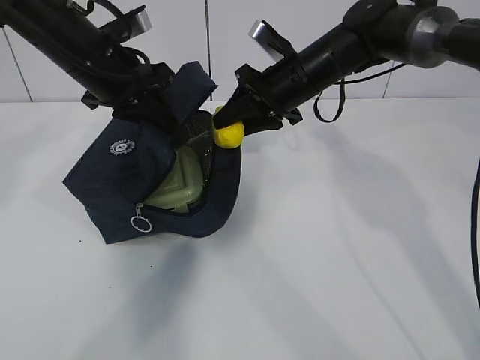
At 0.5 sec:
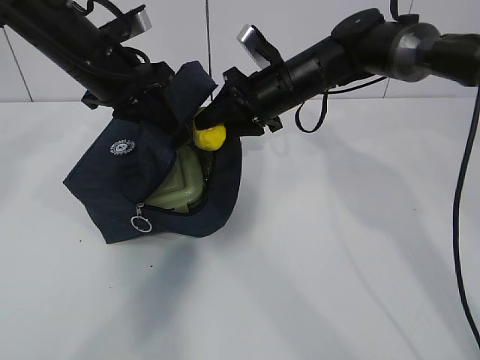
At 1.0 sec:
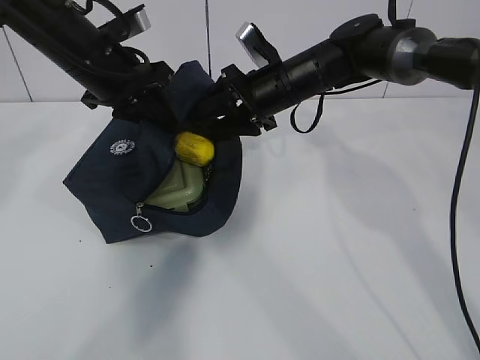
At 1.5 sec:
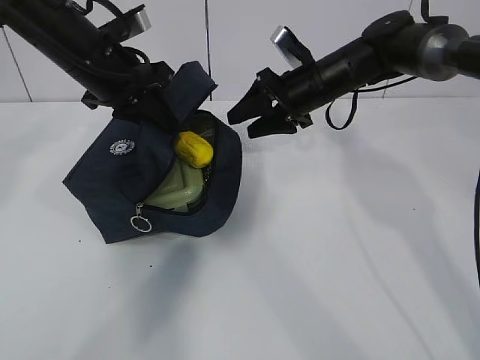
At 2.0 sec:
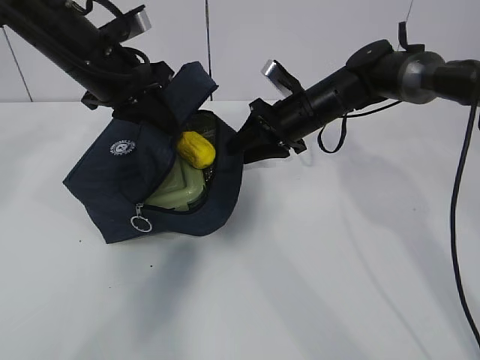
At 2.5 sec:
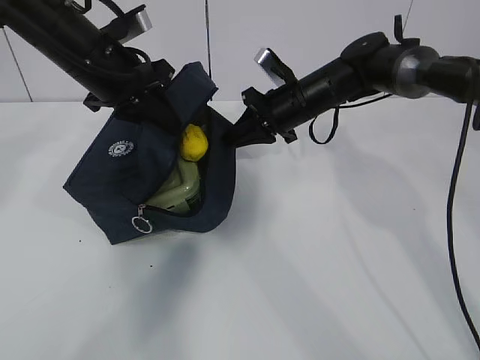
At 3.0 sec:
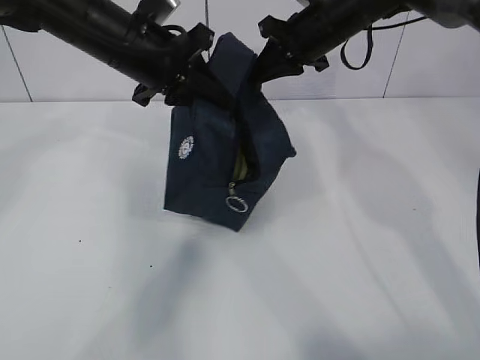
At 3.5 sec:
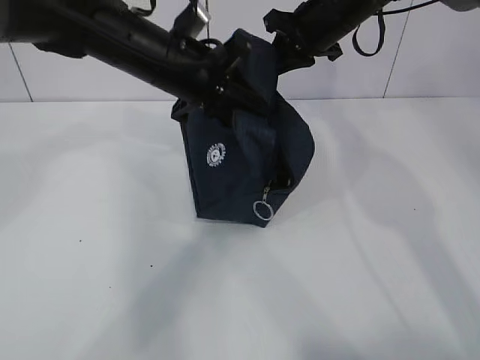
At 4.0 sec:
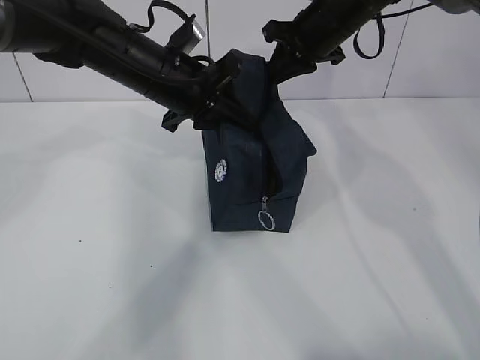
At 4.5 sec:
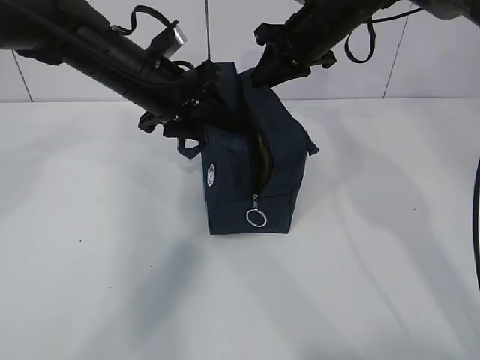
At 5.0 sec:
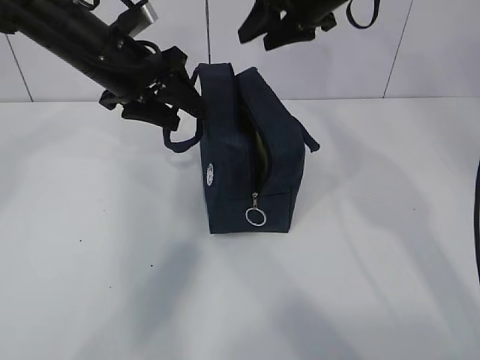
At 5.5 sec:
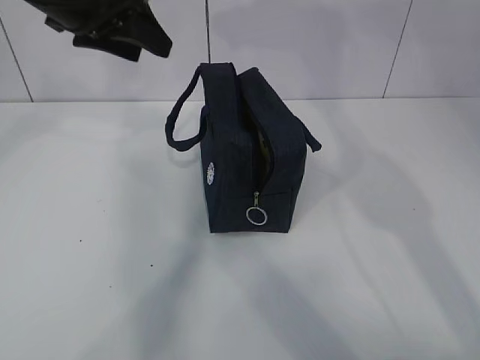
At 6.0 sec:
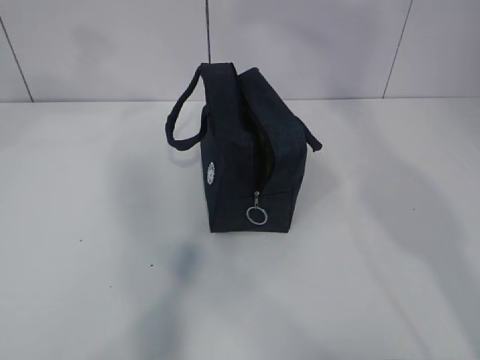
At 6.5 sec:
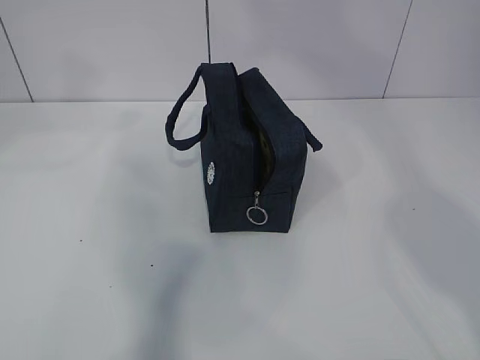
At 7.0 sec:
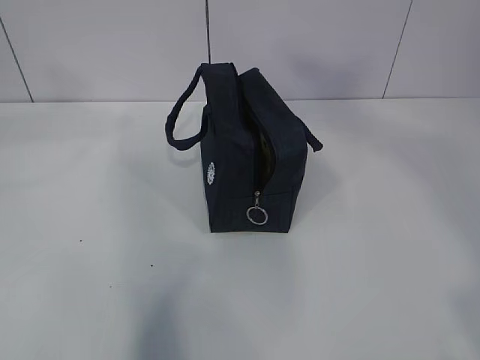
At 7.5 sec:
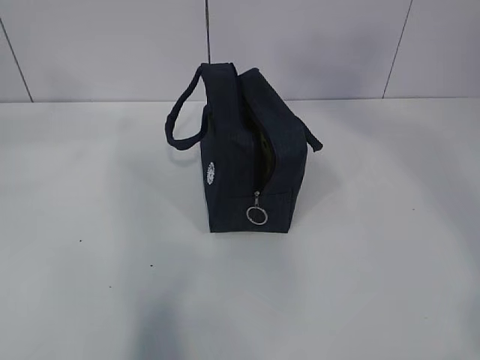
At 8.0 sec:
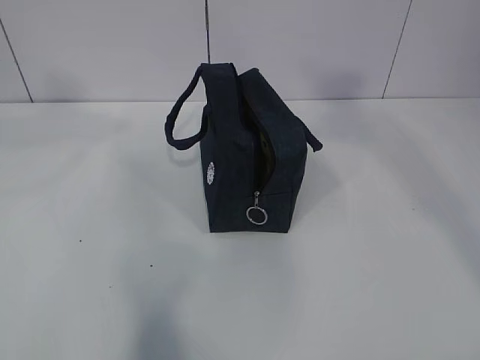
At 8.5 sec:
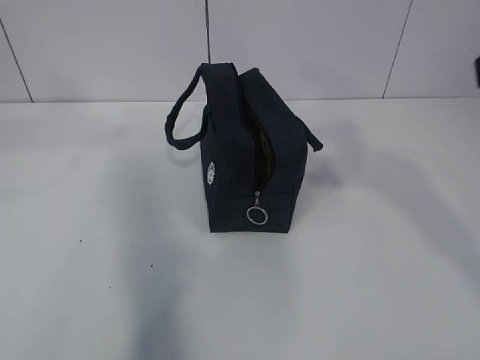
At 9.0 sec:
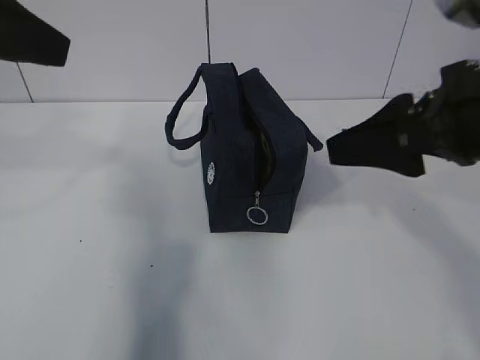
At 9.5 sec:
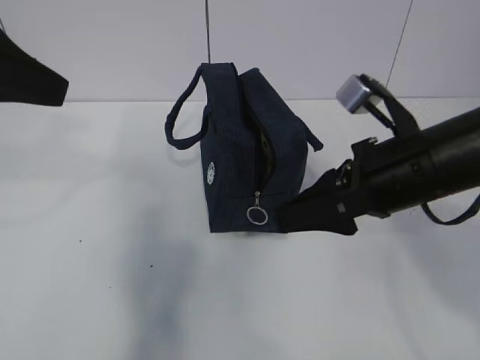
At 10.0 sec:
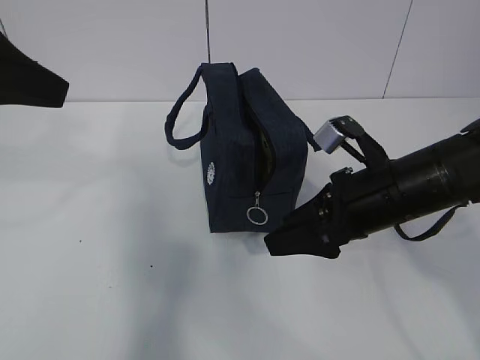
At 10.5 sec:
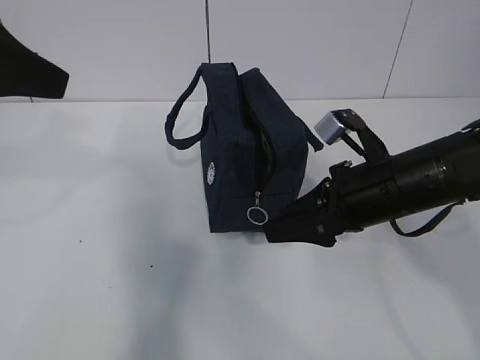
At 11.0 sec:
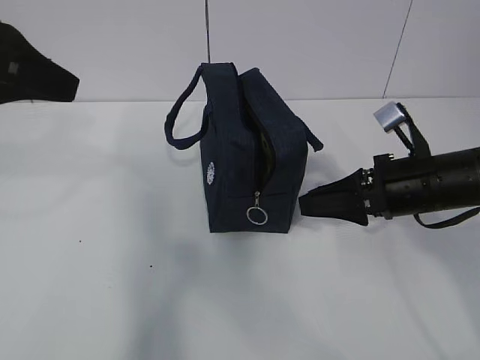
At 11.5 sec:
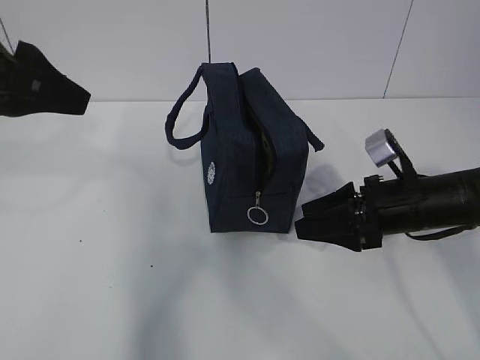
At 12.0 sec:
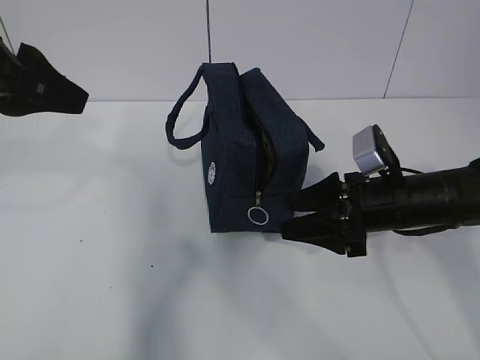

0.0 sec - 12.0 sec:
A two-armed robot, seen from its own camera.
0.0 sec - 2.0 sec: The right gripper shifts about 5 cm downward.
2.0 sec - 4.0 sec: The left gripper moves to the right, approximately 5 cm; the right gripper travels upward by roughly 15 cm, and closes.
4.0 sec - 6.0 sec: The left gripper travels upward and to the left by about 20 cm, and opens, while the right gripper heads upward and backward, covering some 40 cm, and opens.
6.0 sec - 8.0 sec: The left gripper shifts approximately 10 cm backward. Meanwhile the right gripper moves backward, downward and to the right, roughly 20 cm.
8.0 sec - 10.0 sec: The left gripper heads downward, covering approximately 10 cm; the right gripper shifts about 35 cm downward and forward.
10.0 sec - 12.0 sec: The right gripper is displaced downward by roughly 5 cm.

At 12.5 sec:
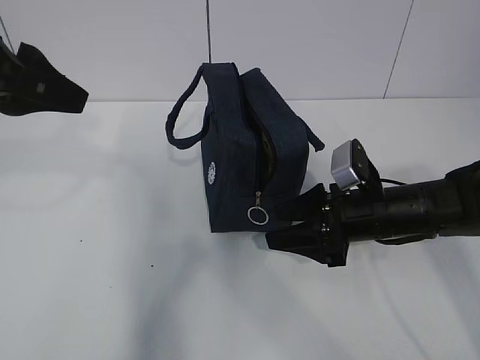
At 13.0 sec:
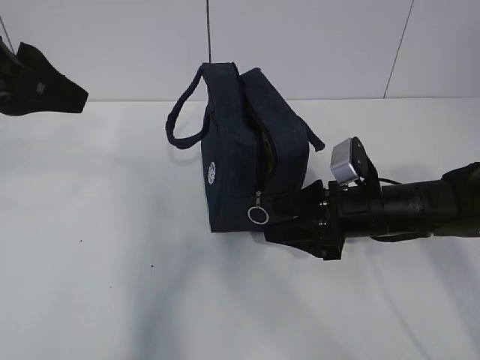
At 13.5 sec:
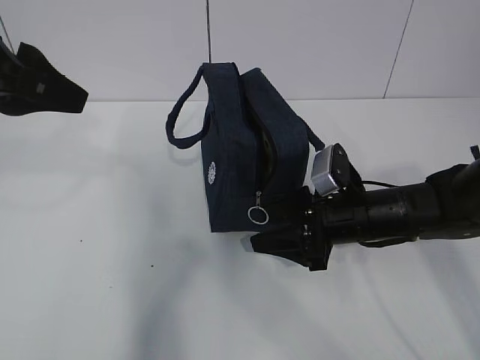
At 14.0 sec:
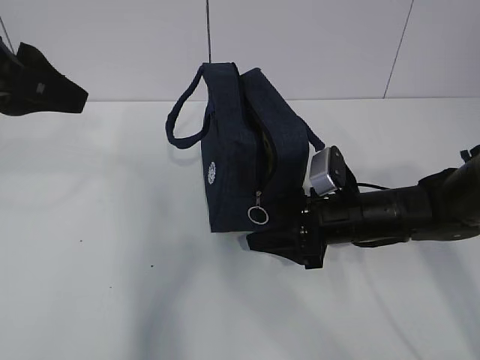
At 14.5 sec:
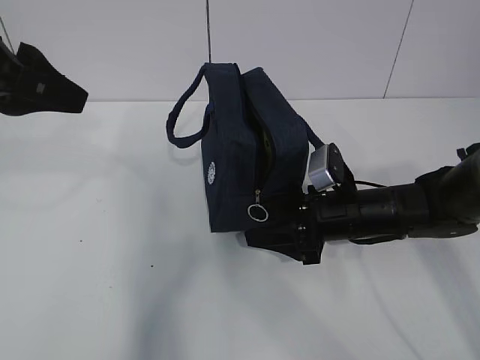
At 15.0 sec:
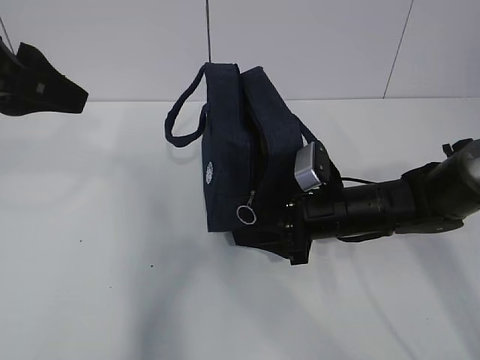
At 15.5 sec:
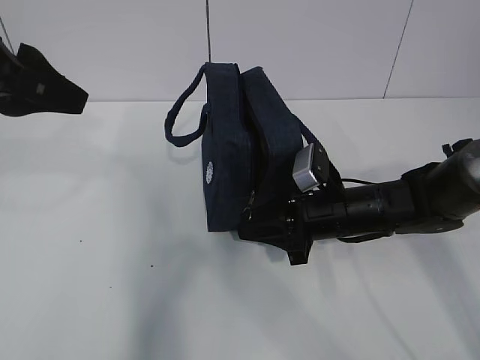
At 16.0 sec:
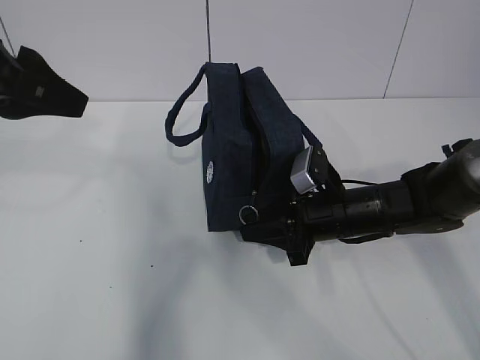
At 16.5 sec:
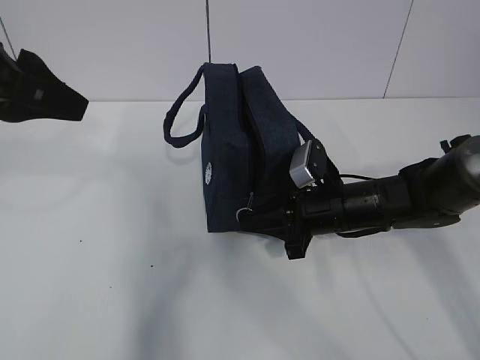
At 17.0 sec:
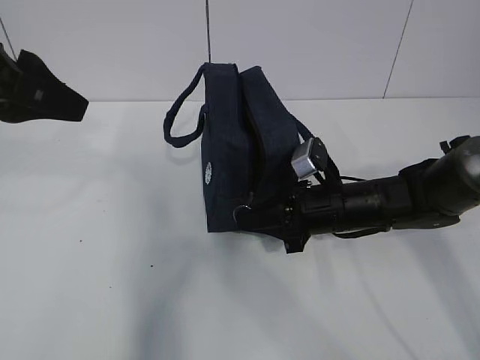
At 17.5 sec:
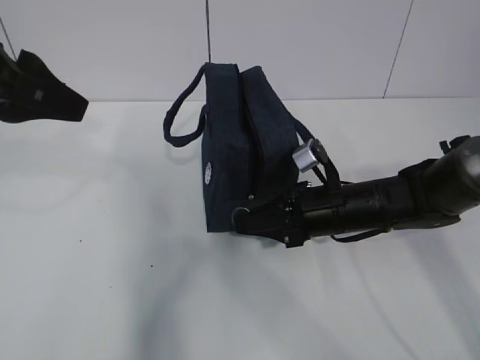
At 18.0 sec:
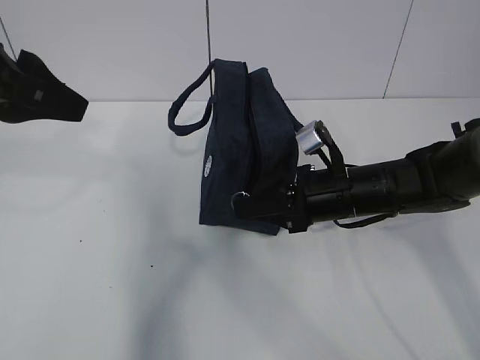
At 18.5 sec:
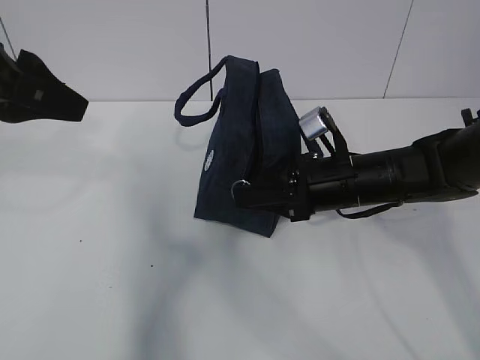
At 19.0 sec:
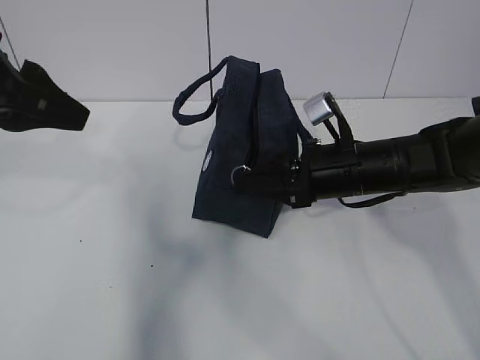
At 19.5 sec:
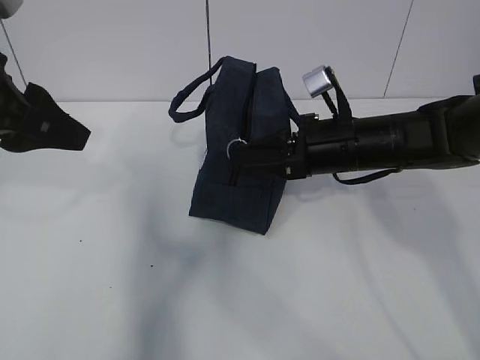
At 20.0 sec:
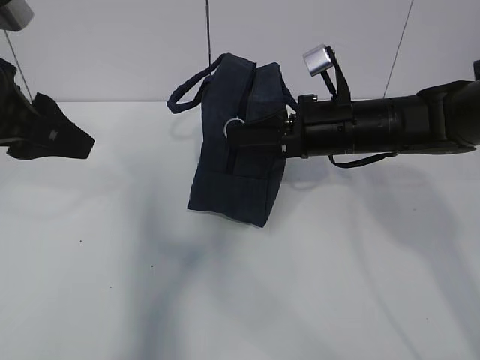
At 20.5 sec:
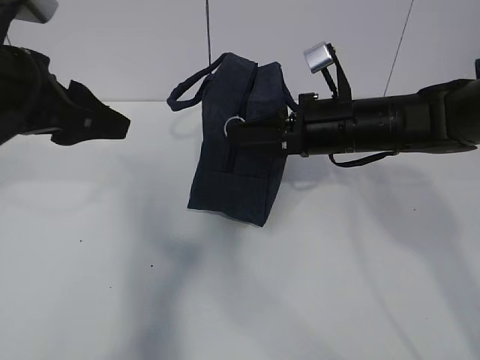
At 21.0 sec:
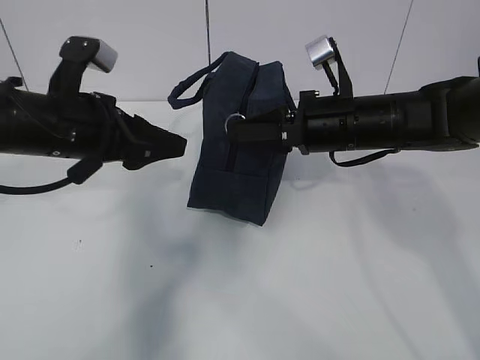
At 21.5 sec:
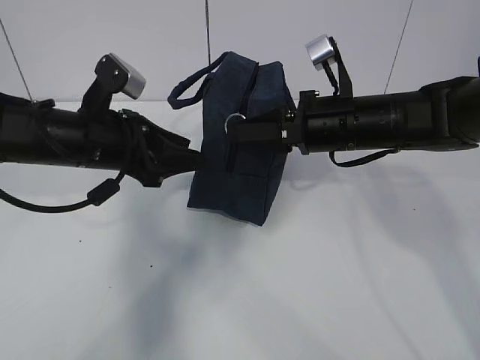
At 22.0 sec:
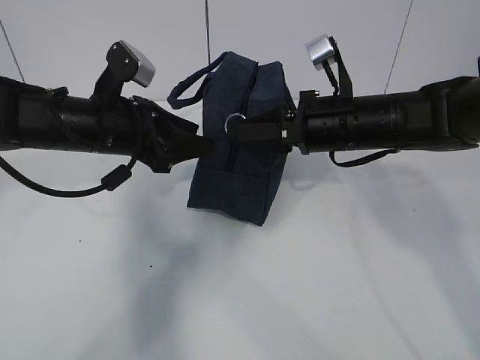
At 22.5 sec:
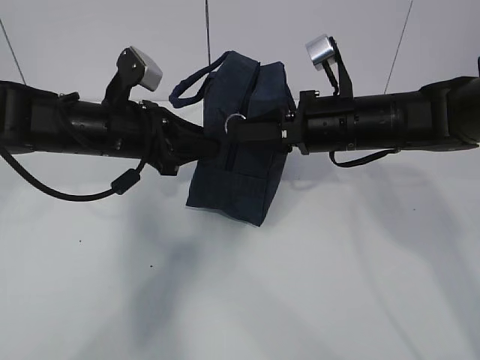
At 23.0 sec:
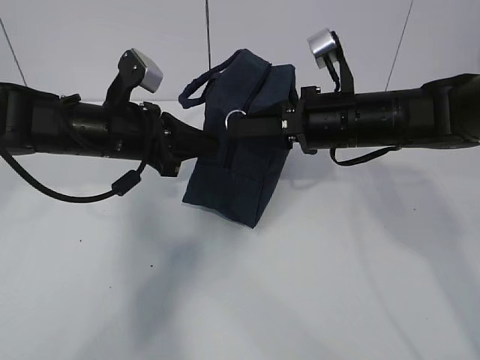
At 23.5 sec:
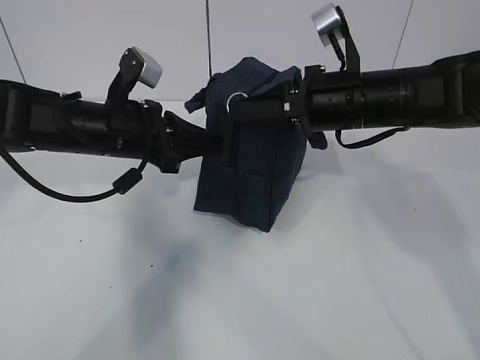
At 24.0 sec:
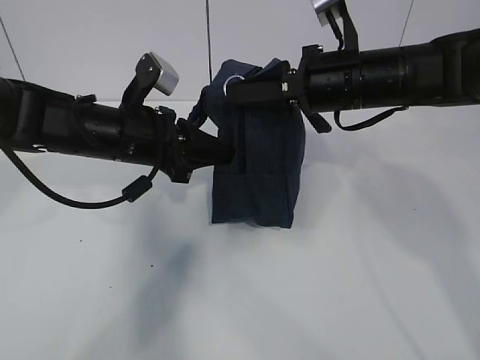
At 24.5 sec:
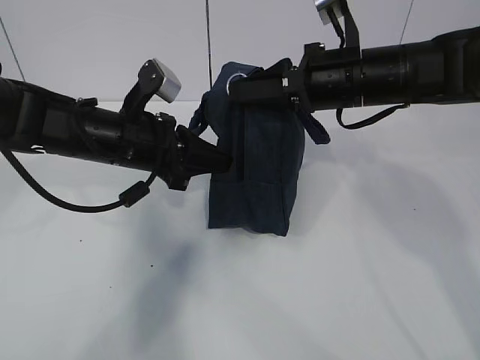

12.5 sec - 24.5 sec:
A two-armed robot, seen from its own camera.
Step, 19.0 sec - 24.0 sec: Pull the zipper with your right hand.
12.5 sec - 14.5 sec: The grippers move only a little.
14.5 sec - 16.5 sec: The right gripper closes its fingers.
16.5 sec - 18.5 sec: The right gripper is displaced upward by some 5 cm.
18.5 sec - 20.5 sec: The left gripper shifts by approximately 5 cm. Meanwhile the right gripper travels upward by about 5 cm.
20.5 sec - 22.5 sec: The left gripper shifts approximately 15 cm downward, forward and to the right.
22.5 sec - 24.5 sec: The left gripper closes, while the right gripper shifts about 5 cm upward.

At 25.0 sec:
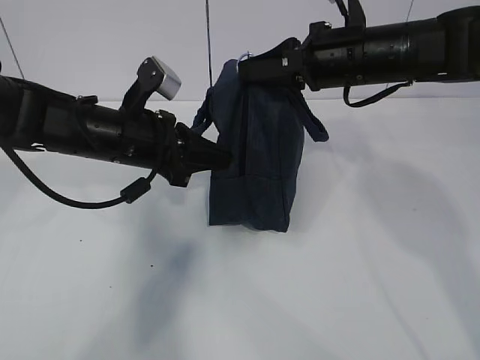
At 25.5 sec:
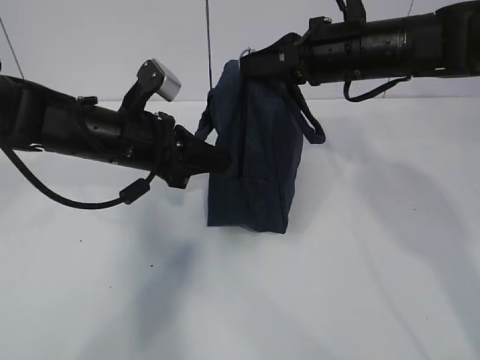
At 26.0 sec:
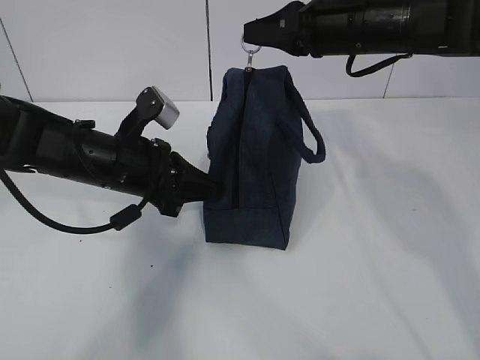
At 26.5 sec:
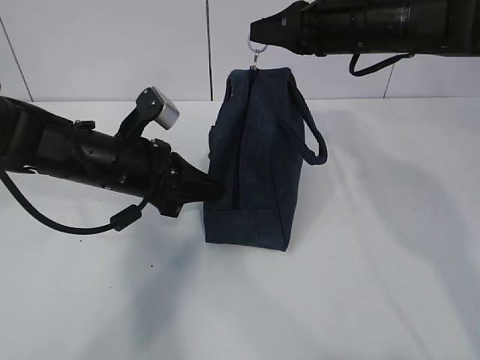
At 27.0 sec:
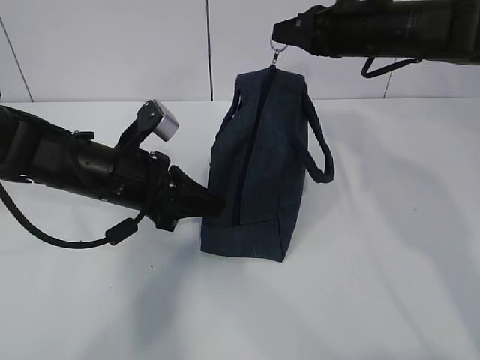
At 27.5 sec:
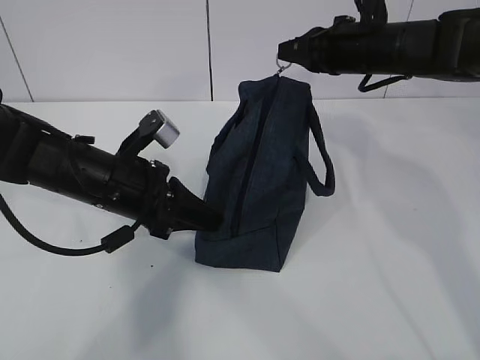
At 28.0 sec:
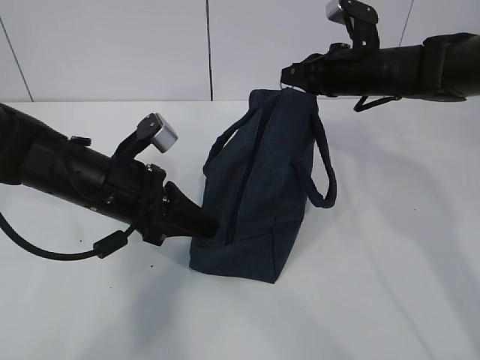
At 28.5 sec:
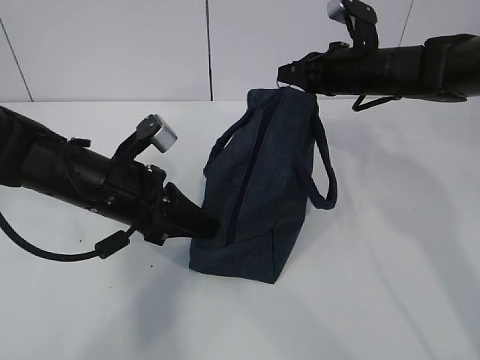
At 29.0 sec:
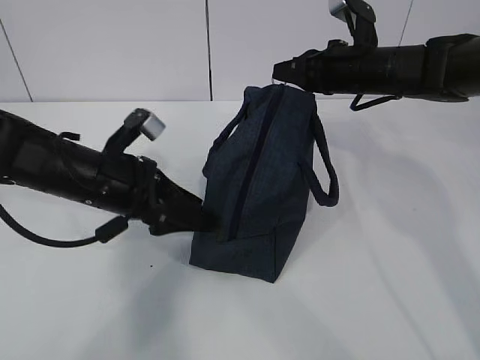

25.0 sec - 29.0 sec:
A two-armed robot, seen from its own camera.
25.0 sec - 27.0 sec: The right gripper ends up some 5 cm from where it was.
27.0 sec - 29.0 sec: The left gripper opens its fingers. Meanwhile the right gripper goes approximately 5 cm downward.
